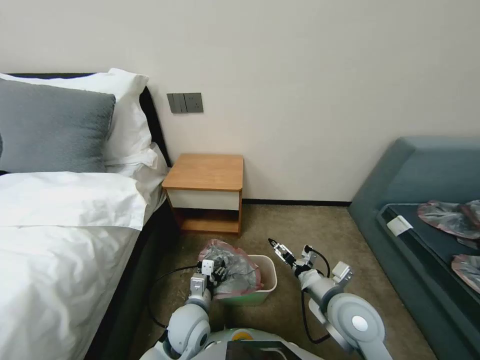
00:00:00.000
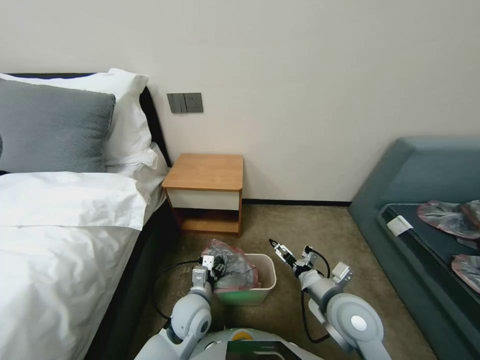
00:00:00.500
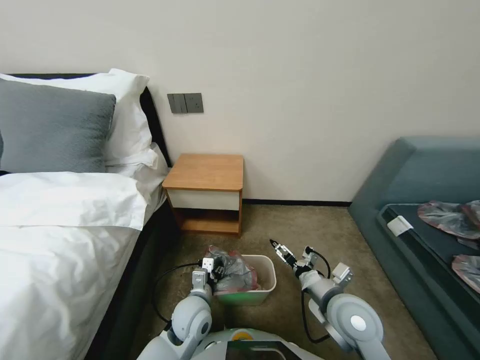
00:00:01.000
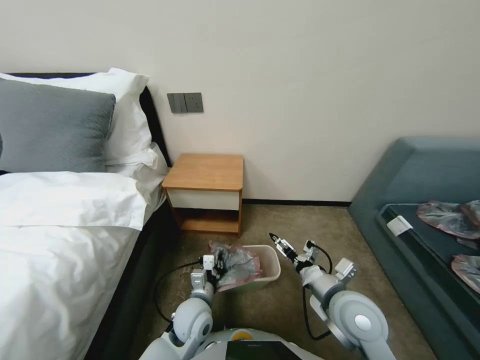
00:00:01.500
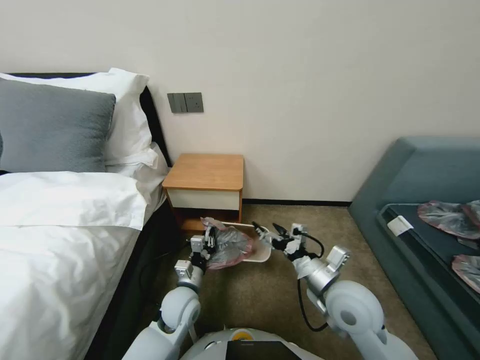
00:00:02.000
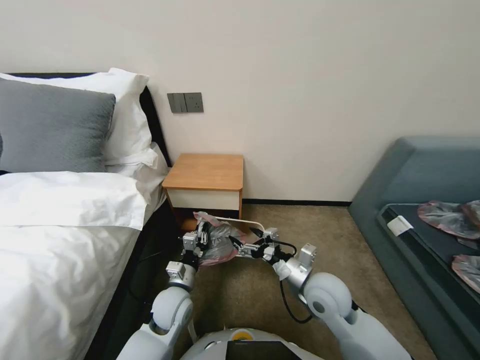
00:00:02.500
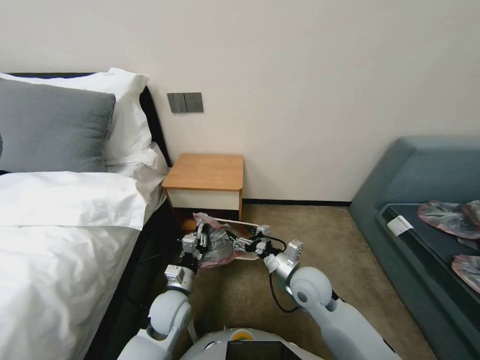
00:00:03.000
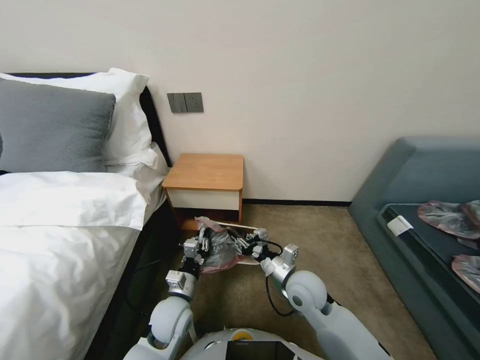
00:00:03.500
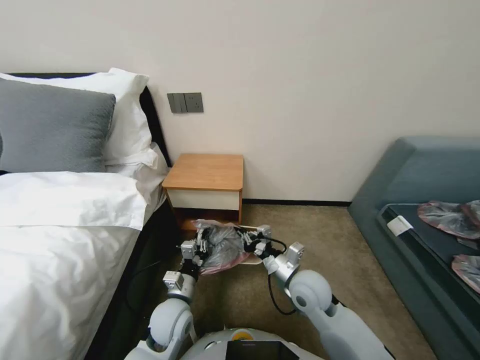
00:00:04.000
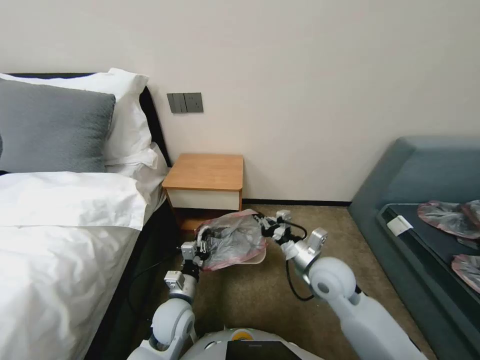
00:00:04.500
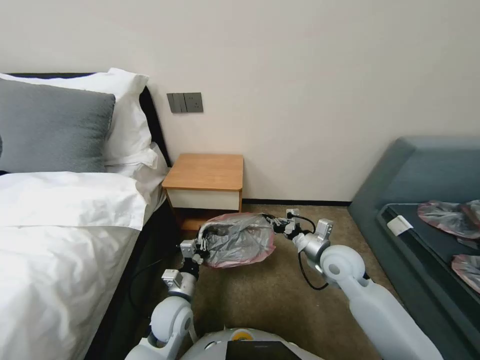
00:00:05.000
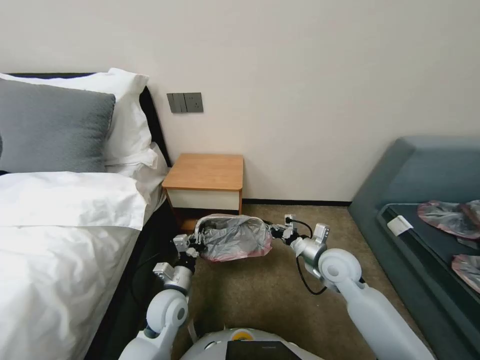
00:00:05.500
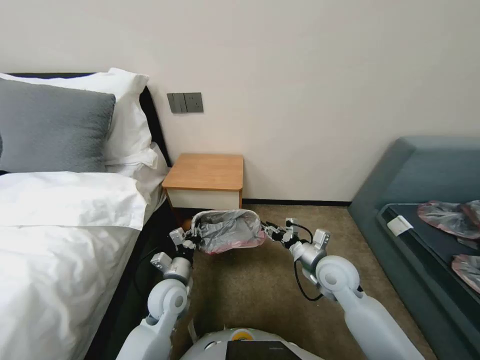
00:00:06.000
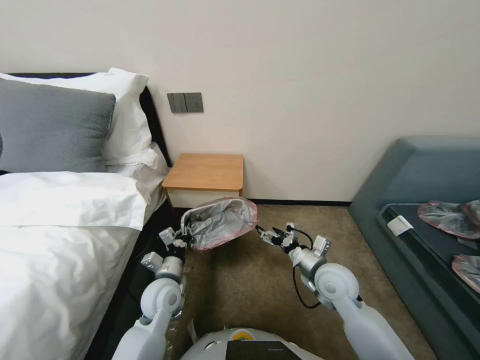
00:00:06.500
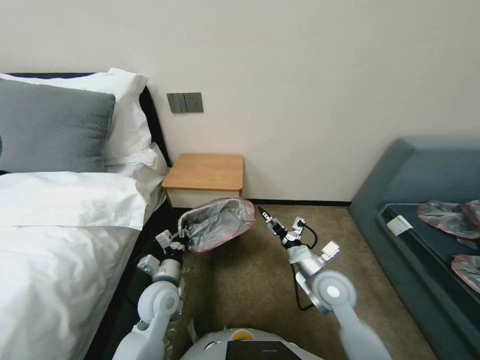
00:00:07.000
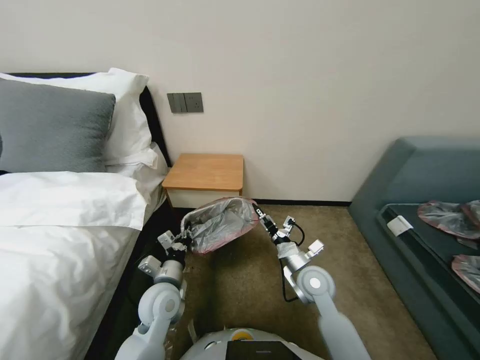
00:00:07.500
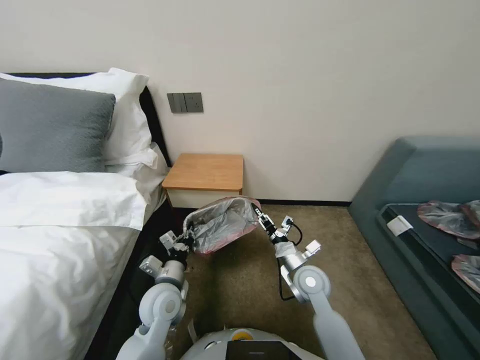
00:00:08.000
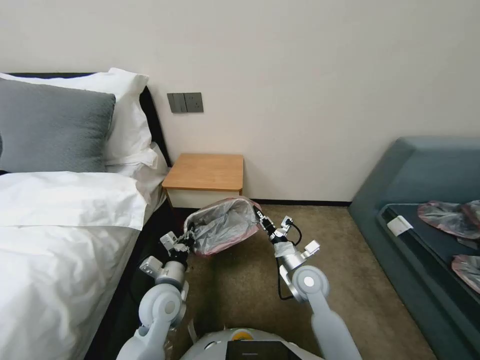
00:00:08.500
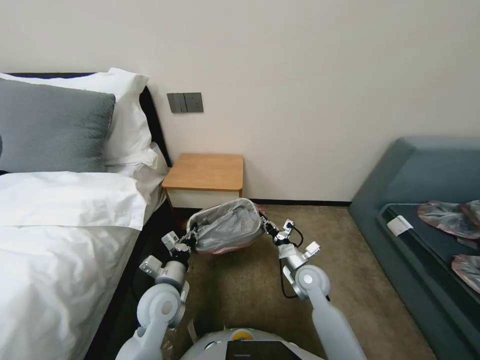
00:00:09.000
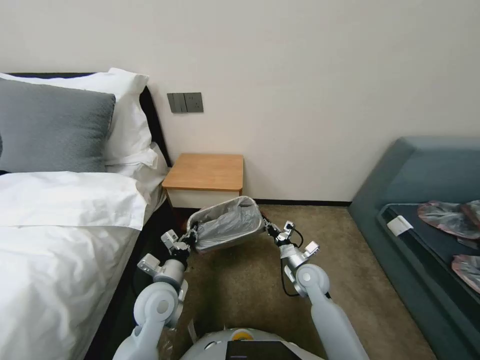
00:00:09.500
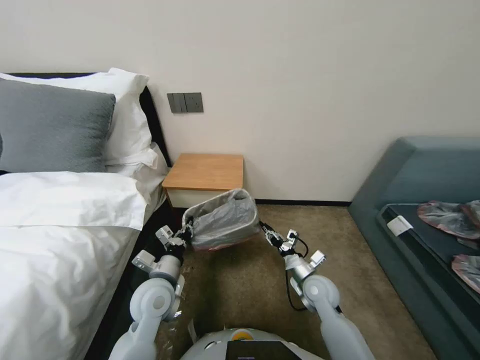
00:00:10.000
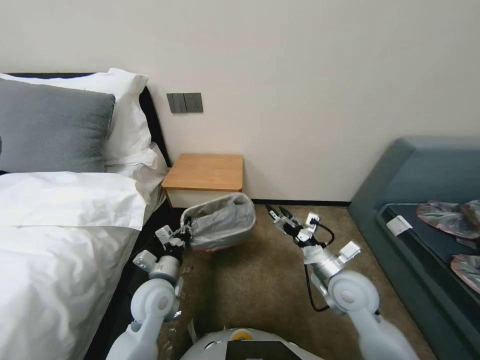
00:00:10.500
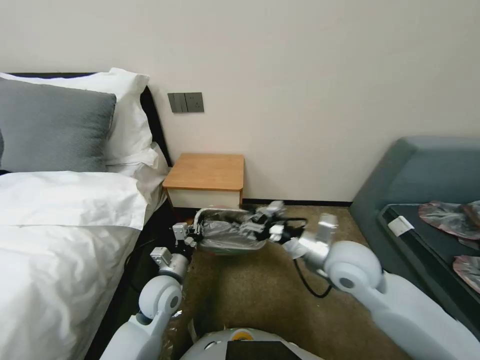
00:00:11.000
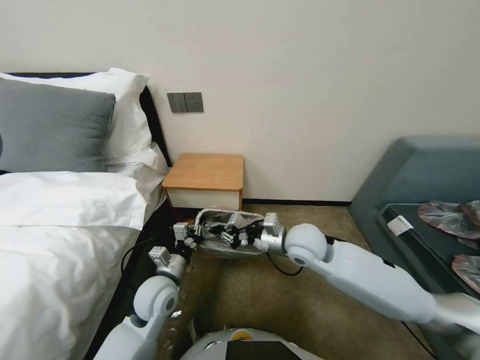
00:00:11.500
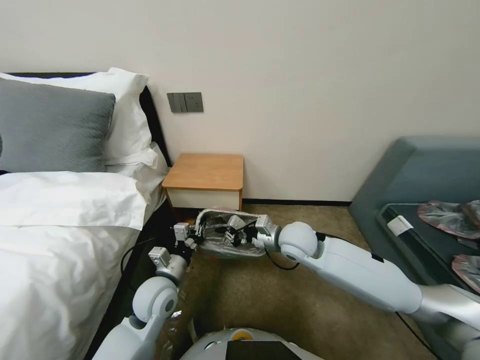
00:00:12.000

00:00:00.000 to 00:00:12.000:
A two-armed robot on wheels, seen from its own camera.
Task of the whole recording: Pick up the garbage bag from the table and place it over the trash can.
00:00:00.000 to 00:00:02.000: The left gripper ends up about 5 cm from where it was, and closes its fingers.
00:00:02.000 to 00:00:04.000: The right gripper moves downward, to the left and forward, about 10 cm, and closes up.
00:00:04.000 to 00:00:06.000: The right gripper shifts some 10 cm to the right, and opens its fingers.
00:00:06.000 to 00:00:08.000: The right gripper travels to the left by roughly 5 cm, and opens and closes again.
00:00:08.000 to 00:00:10.000: The right gripper shifts some 5 cm downward, and closes, then opens again.
00:00:10.000 to 00:00:12.000: The right gripper is displaced upward, to the left and forward by approximately 20 cm, and closes its fingers.

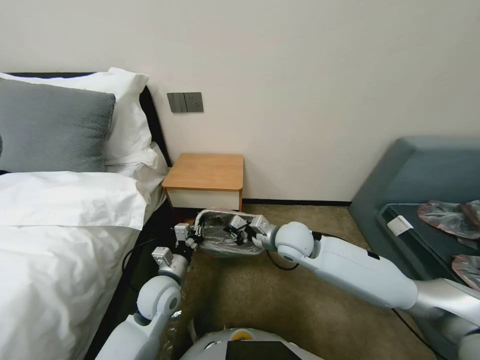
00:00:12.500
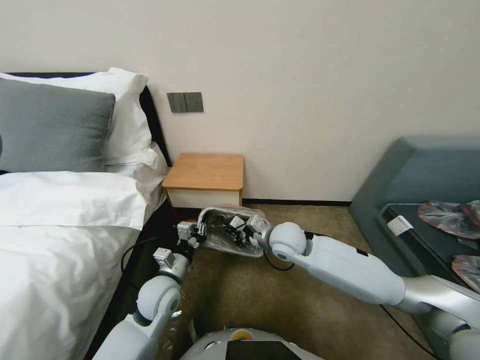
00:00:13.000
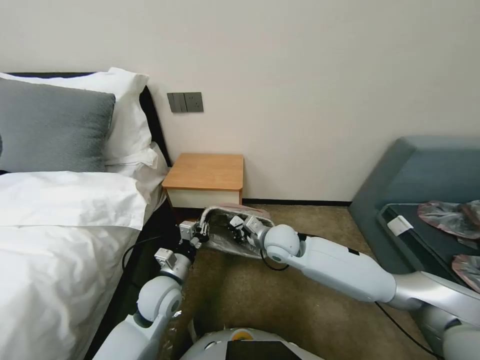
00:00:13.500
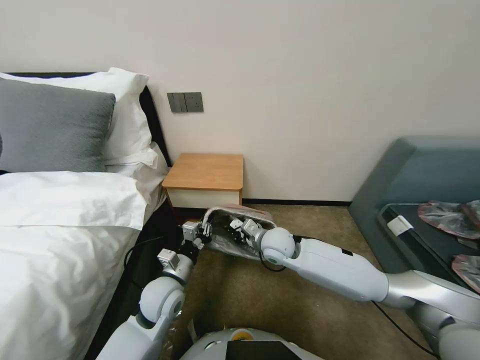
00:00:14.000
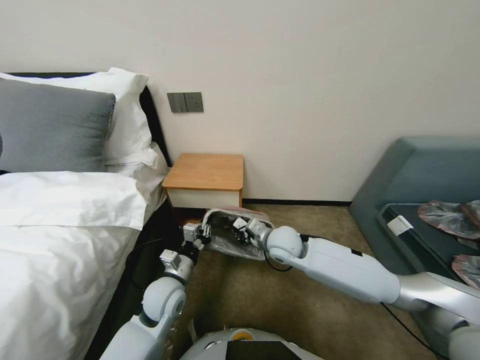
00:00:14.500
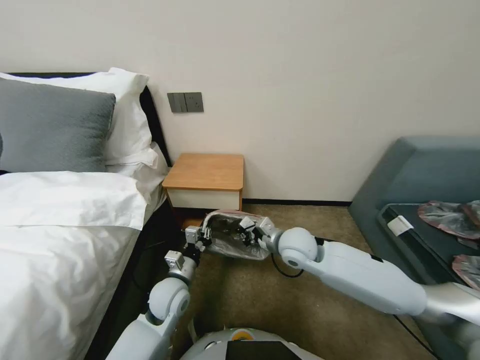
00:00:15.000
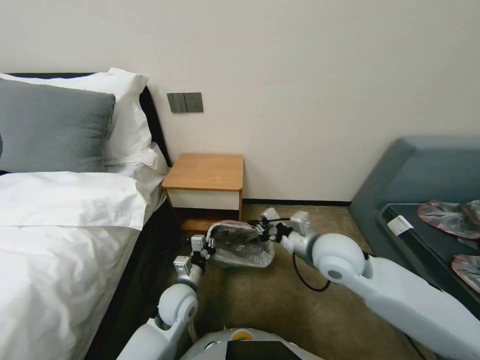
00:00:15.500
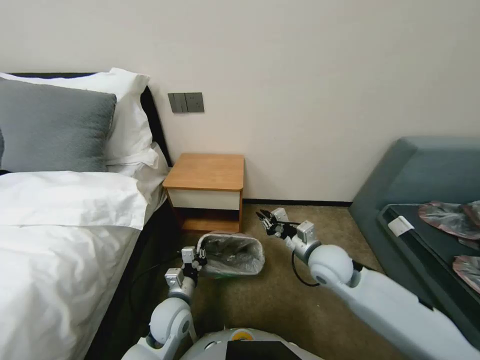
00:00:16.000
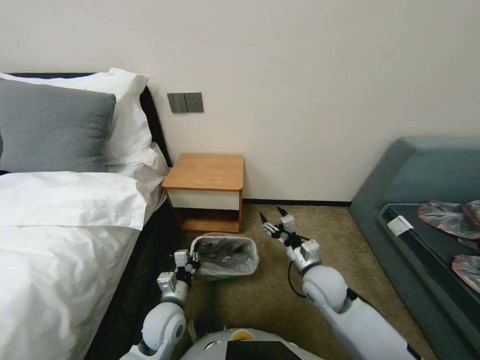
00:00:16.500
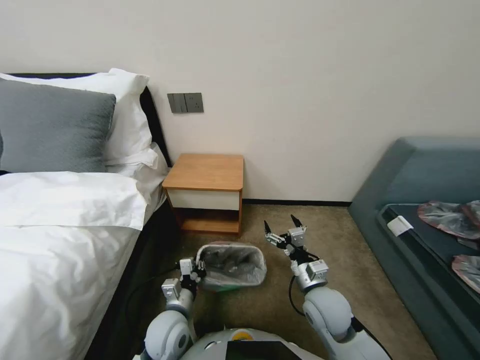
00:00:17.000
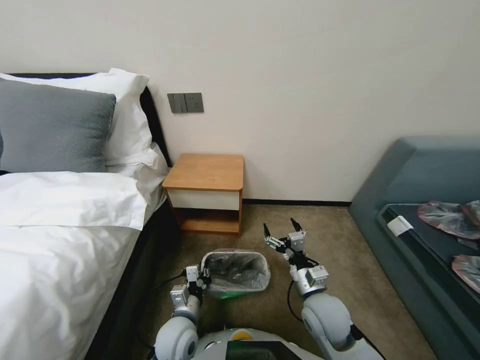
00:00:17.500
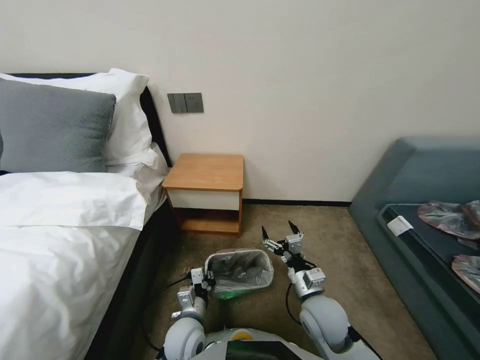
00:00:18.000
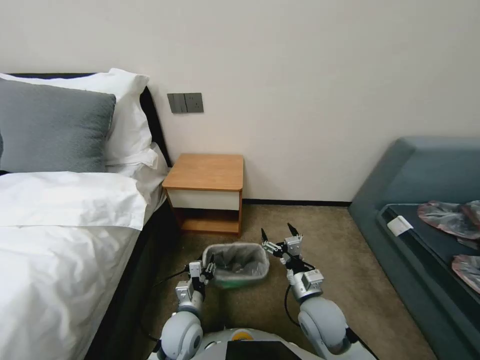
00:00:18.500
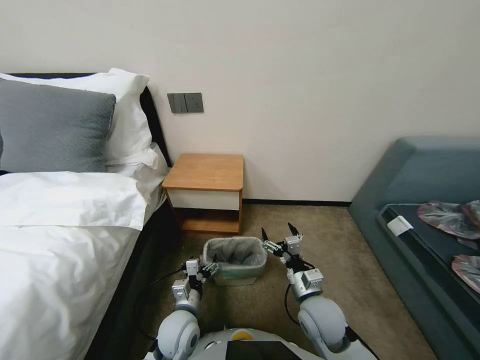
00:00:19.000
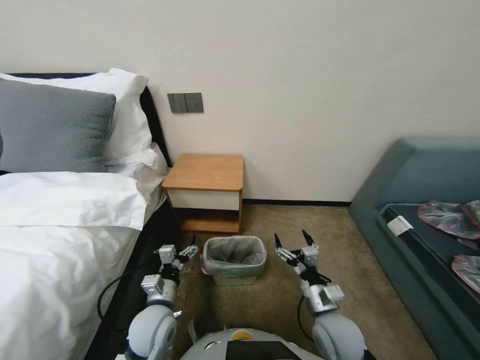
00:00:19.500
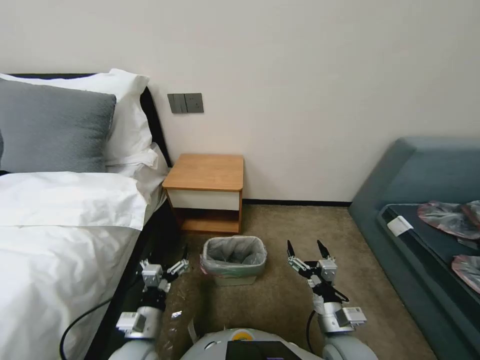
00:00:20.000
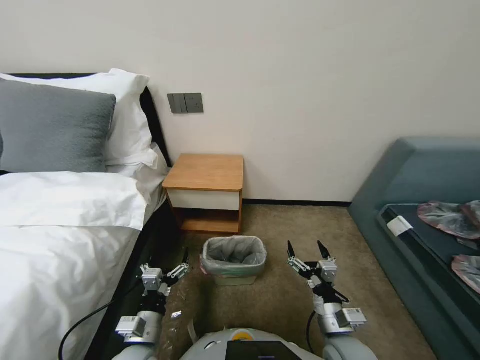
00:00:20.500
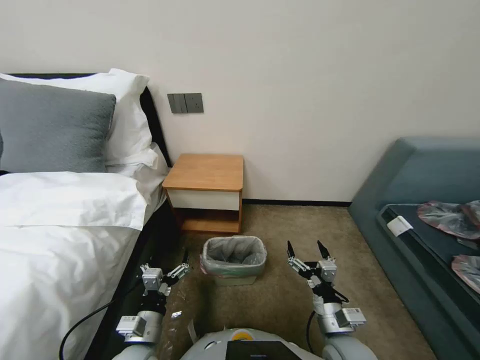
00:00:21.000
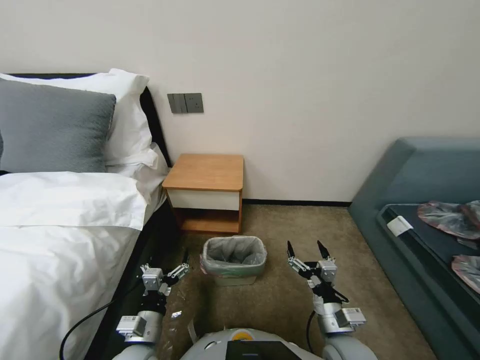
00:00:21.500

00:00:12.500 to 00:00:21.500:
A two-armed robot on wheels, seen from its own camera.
Task of the whole recording: Pick up the garbage bag from the table and place it over the trash can.
00:00:12.500 to 00:00:14.500: The grippers move only a little.
00:00:14.500 to 00:00:17.000: The right gripper goes roughly 15 cm backward and to the right, and opens its fingers. Meanwhile the left gripper travels backward and downward by about 5 cm.
00:00:17.000 to 00:00:19.500: The right gripper heads backward, covering approximately 5 cm, while the left gripper opens its fingers.
00:00:19.500 to 00:00:21.500: The grippers both shift backward by roughly 5 cm.
